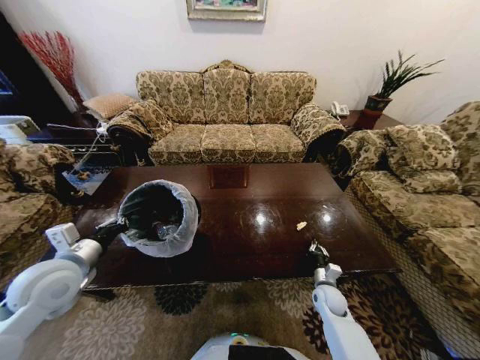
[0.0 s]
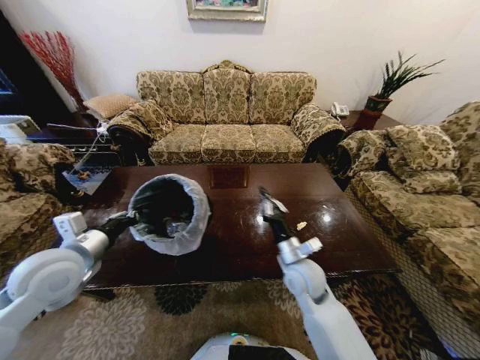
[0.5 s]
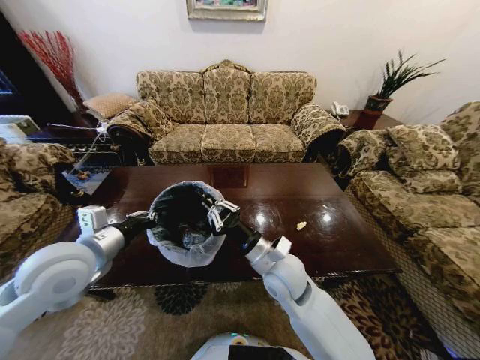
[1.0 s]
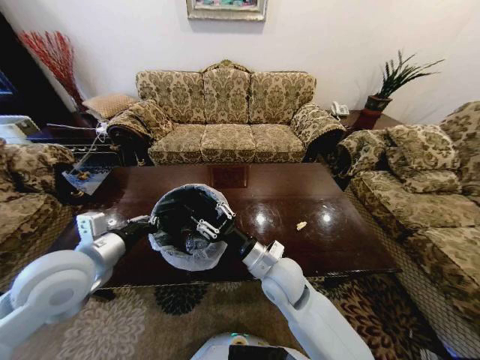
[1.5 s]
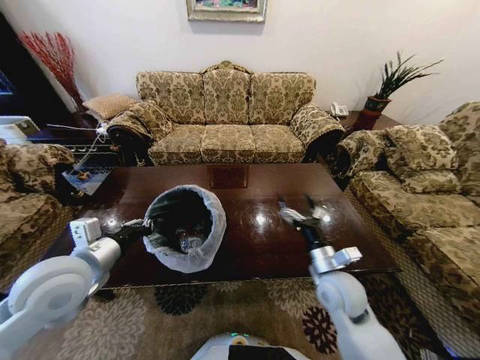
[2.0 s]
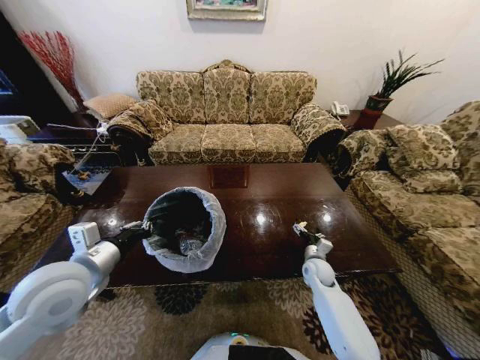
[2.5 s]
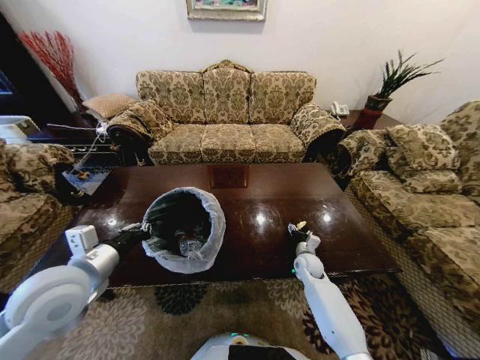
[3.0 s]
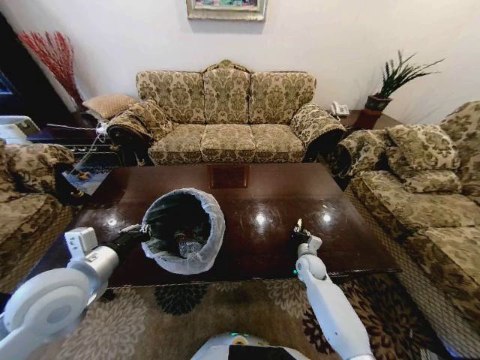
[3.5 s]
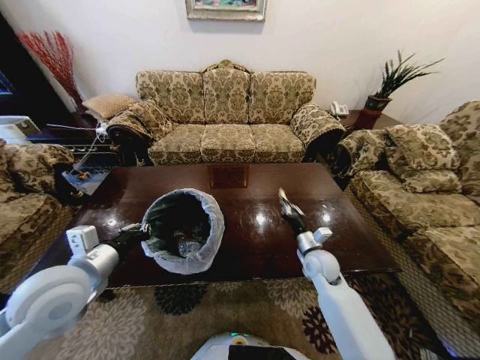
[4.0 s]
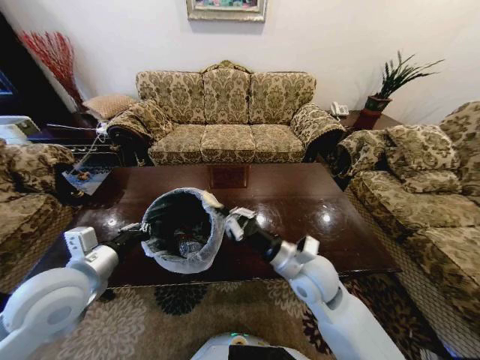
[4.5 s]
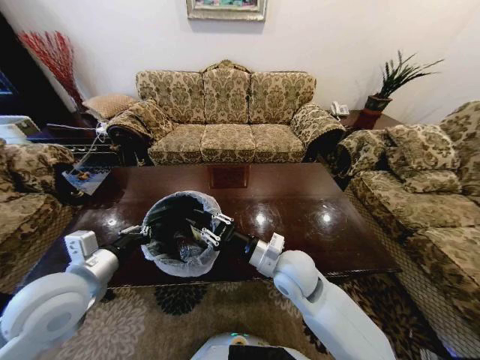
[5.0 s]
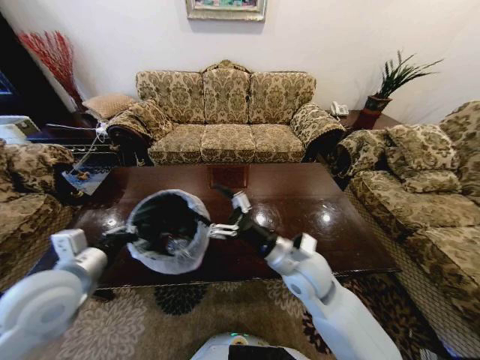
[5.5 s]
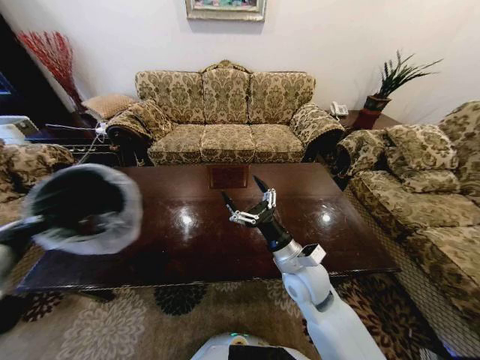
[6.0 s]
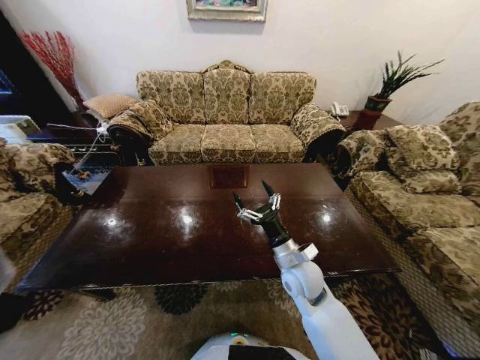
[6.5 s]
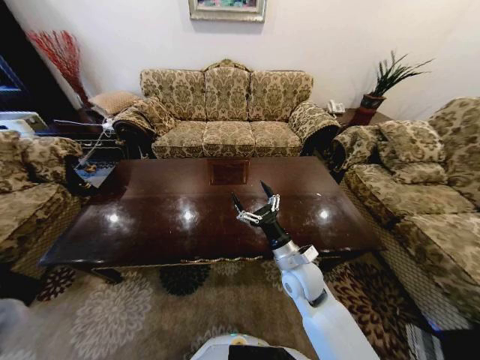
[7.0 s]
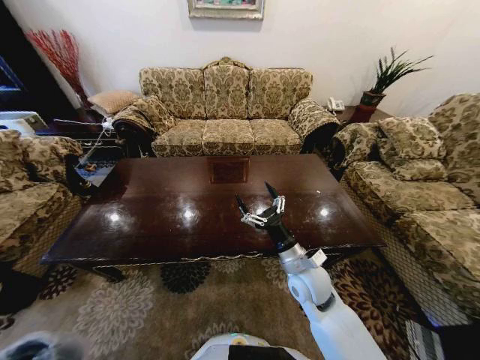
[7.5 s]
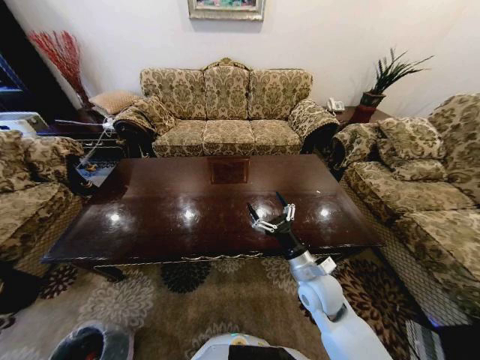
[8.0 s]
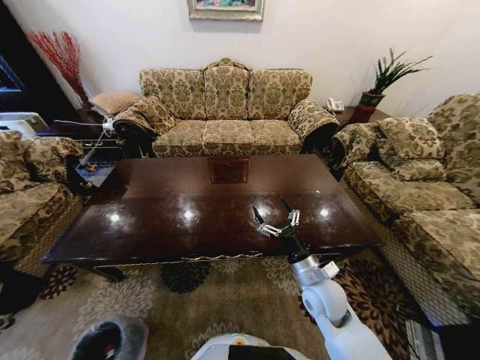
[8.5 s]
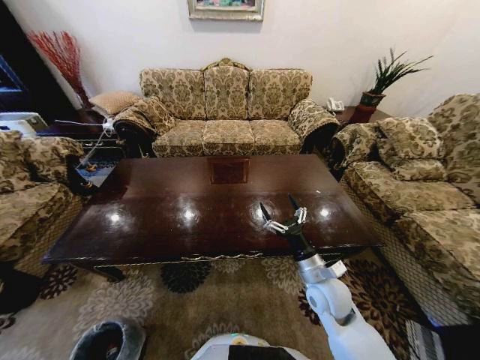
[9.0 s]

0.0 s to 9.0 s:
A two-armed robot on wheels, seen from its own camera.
Task of the whole recording: Move to the front of the table and place the trash on the table into the trash bin.
0.0 to 2.0 s: The left gripper shifts about 5 cm to the right, while the right gripper goes some 20 cm upward, and opens its fingers.
2.0 to 4.5 s: The right gripper heads to the left, covering some 10 cm, reaches about 20 cm downward, then returns, and closes up.
4.5 to 7.0 s: The right gripper heads downward, covering about 5 cm, and opens up, while the left gripper travels to the left, backward and downward by about 40 cm.
7.0 to 9.0 s: The right gripper travels to the right by approximately 5 cm, while the left gripper moves downward and to the right, some 30 cm, and opens.

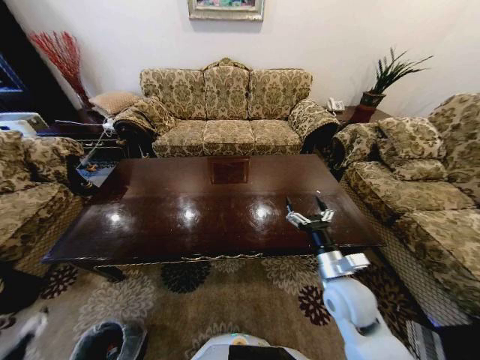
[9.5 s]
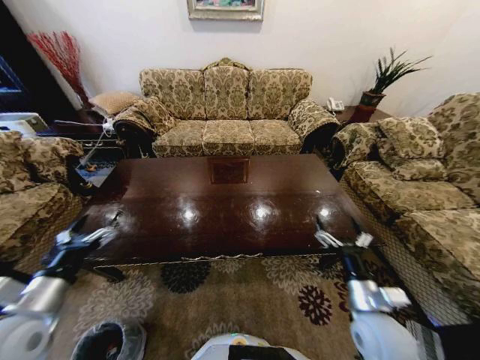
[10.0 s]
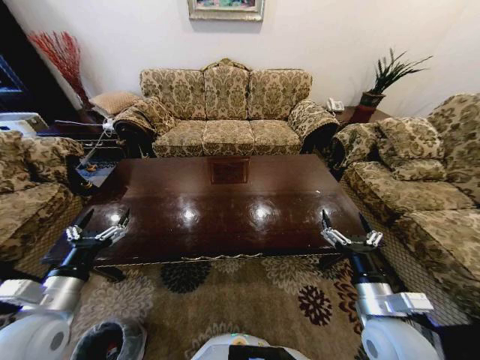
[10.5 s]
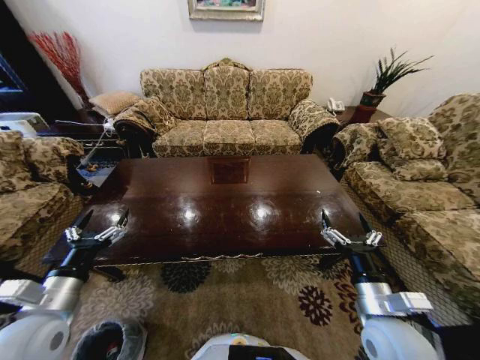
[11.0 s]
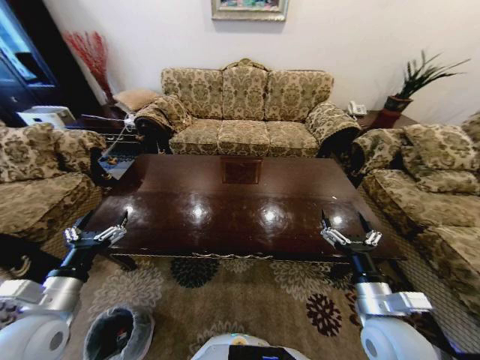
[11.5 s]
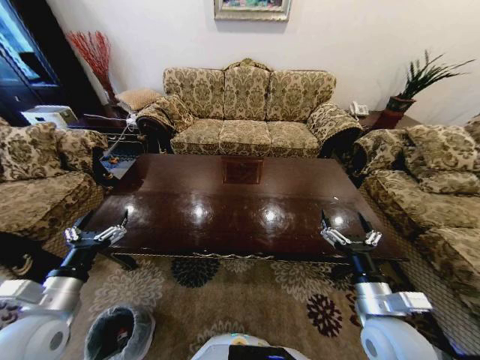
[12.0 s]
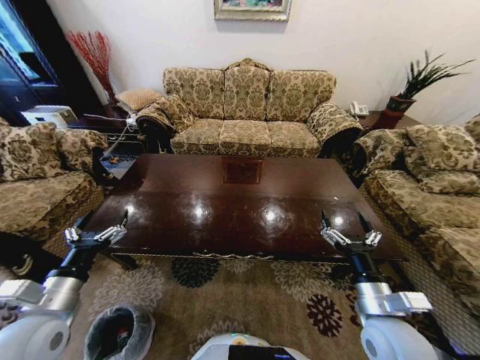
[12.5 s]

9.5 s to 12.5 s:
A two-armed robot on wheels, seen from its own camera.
Task of the whole recording: Move to the front of the table and place the trash on the table into the trash bin.
9.5 to 11.0 s: The left gripper moves upward, to the right and forward, approximately 25 cm. Meanwhile the right gripper is displaced backward by some 10 cm.

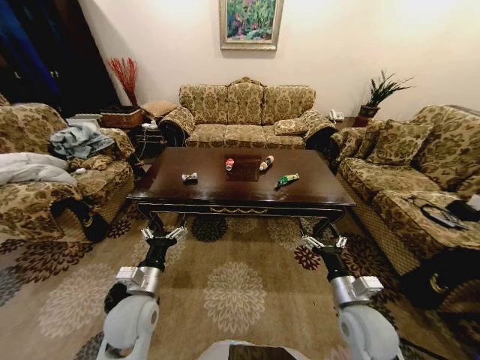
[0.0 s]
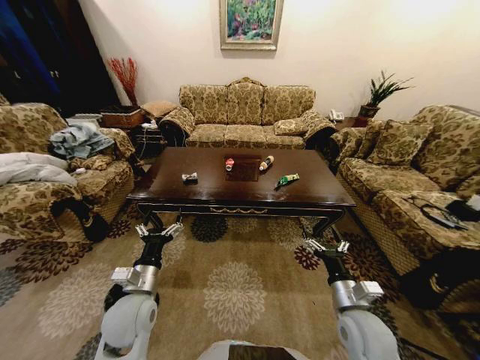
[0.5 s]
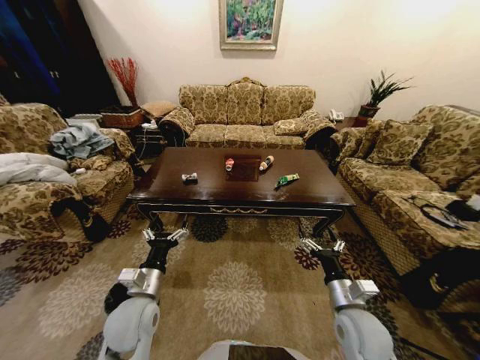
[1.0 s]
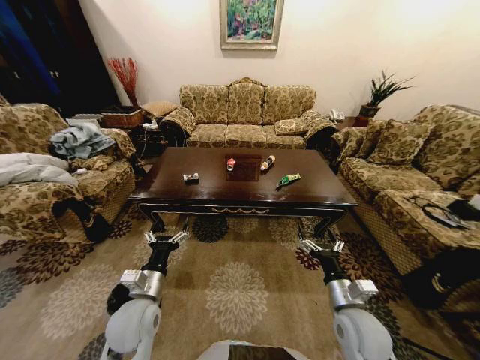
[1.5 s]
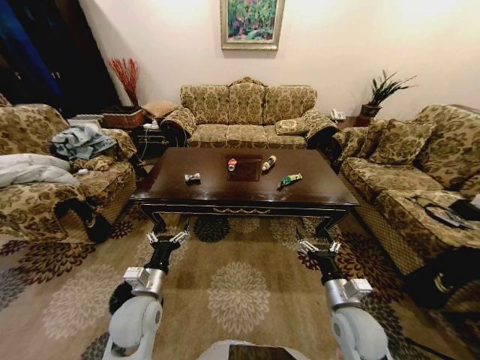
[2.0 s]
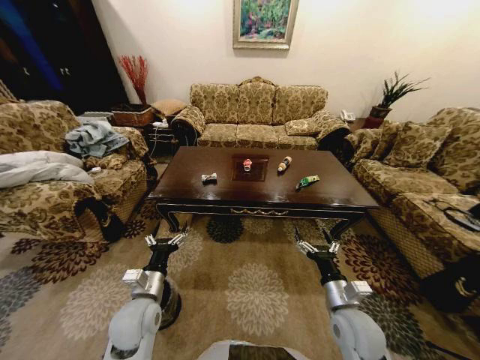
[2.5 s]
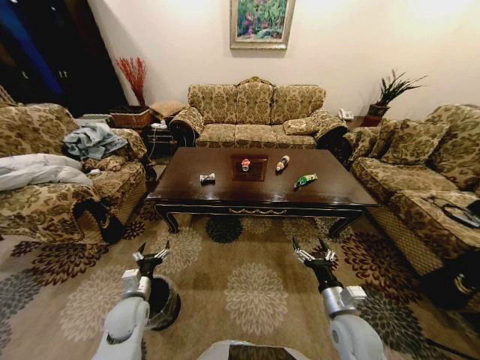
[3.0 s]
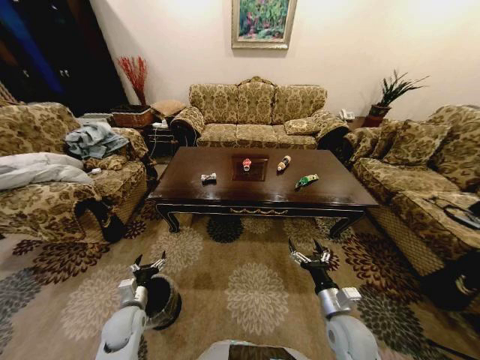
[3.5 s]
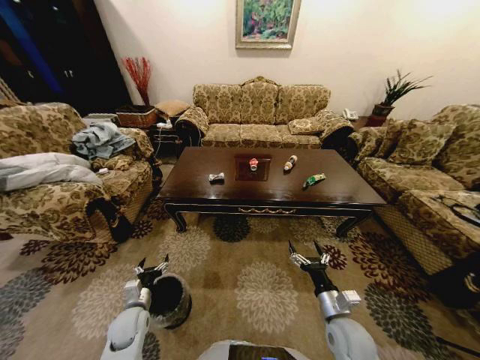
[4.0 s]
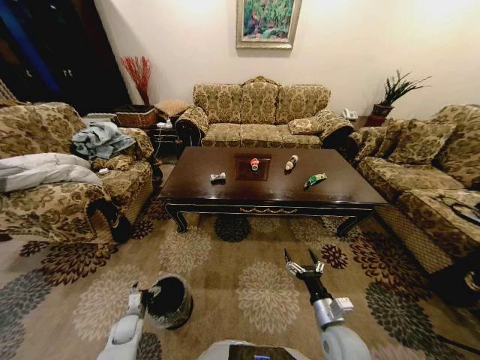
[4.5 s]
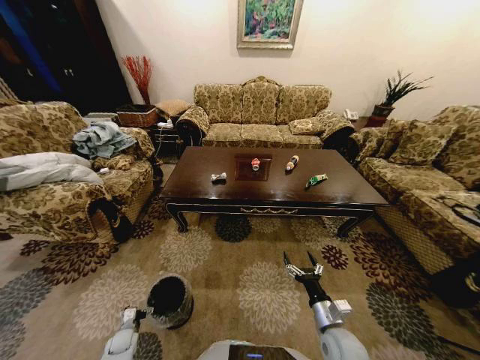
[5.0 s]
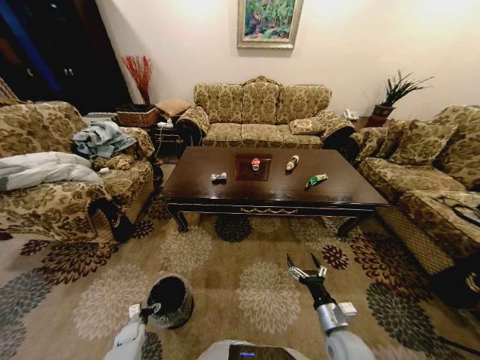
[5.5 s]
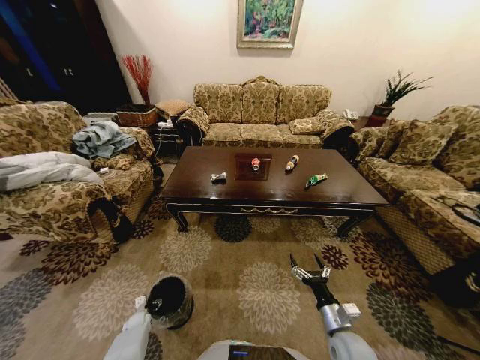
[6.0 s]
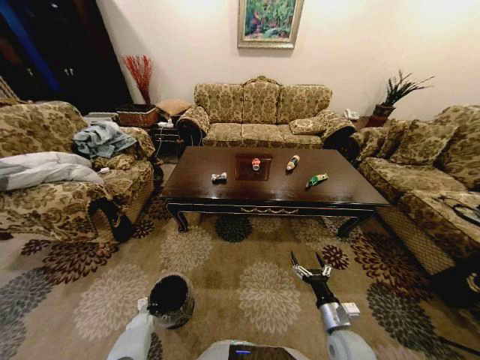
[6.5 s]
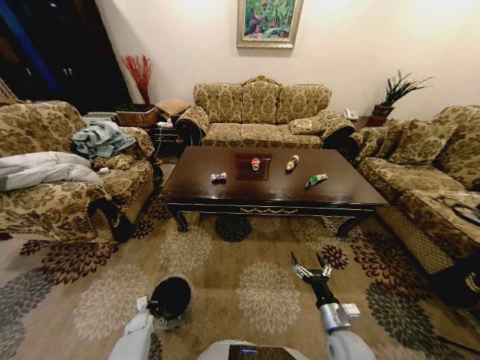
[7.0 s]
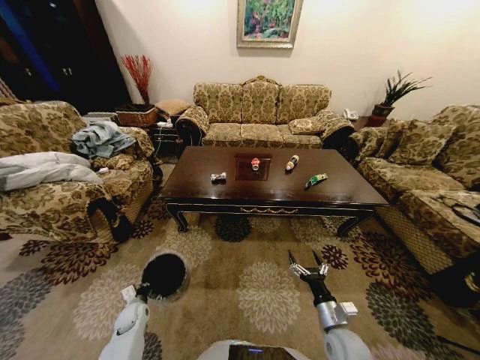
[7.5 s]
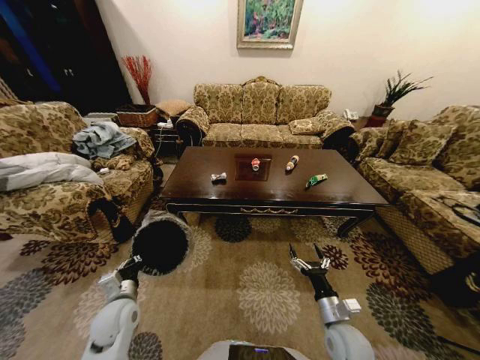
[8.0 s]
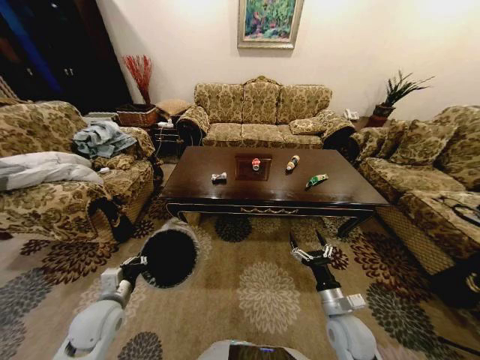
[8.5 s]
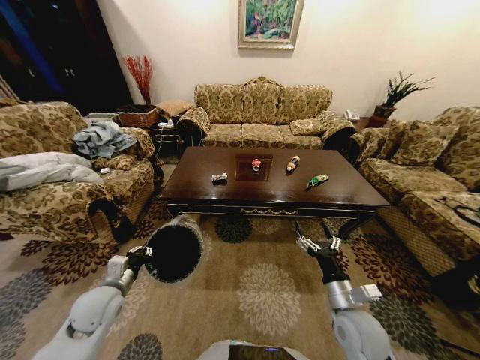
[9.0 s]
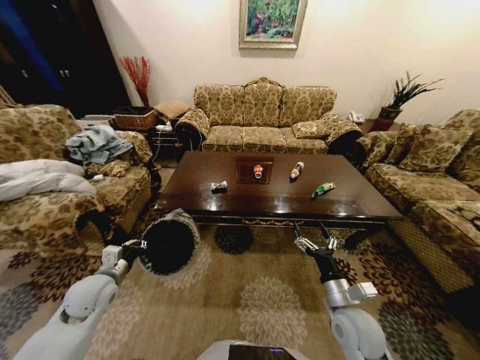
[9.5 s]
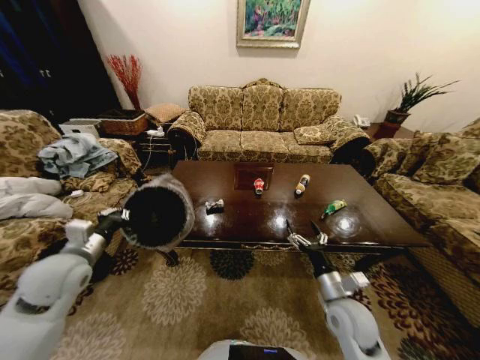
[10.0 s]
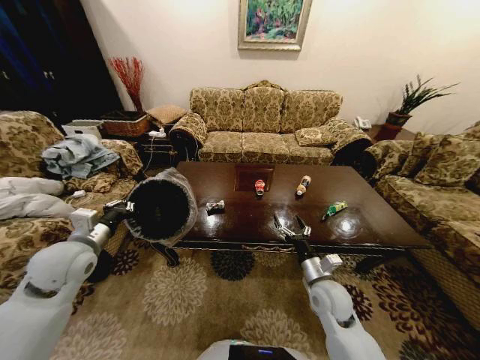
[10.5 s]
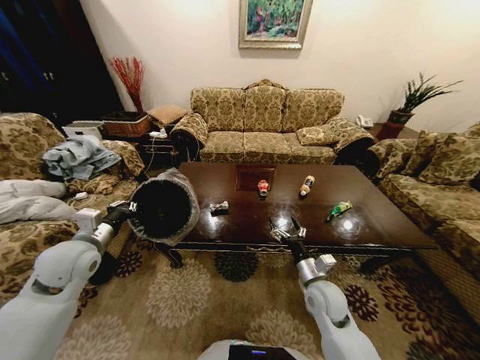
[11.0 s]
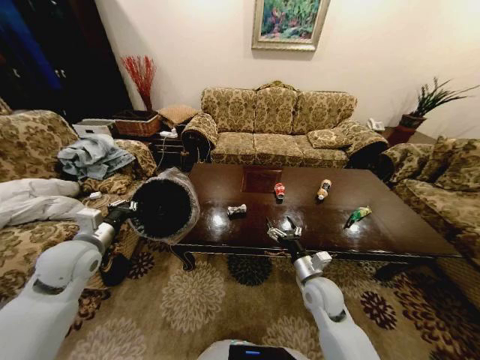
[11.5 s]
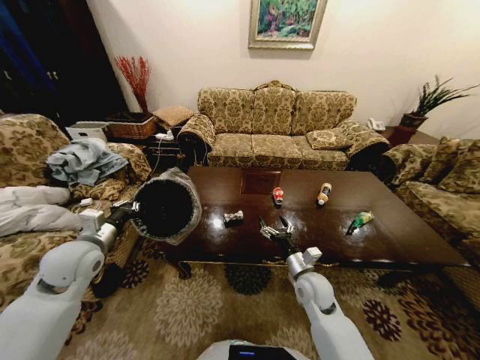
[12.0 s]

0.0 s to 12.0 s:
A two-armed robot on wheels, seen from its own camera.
Task of the whole recording: Move to the front of the table and place the trash on the table into the trash bin.
2.0 to 4.0 s: The left gripper moves downward and to the left, roughly 15 cm; the right gripper travels downward by some 5 cm.
4.0 to 6.0 s: The left gripper travels downward by roughly 20 cm.
6.0 to 8.0 s: The left gripper heads upward, covering about 30 cm, and closes up.
8.0 to 10.0 s: The right gripper is displaced upward by approximately 10 cm, while the left gripper travels upward and to the left by approximately 20 cm.
10.0 to 12.0 s: The right gripper heads forward and to the left, covering about 10 cm.

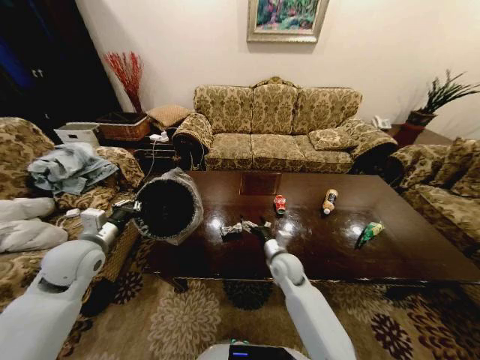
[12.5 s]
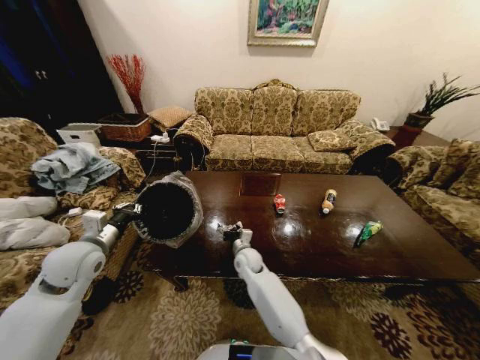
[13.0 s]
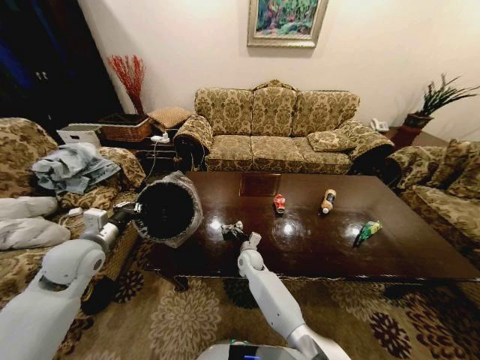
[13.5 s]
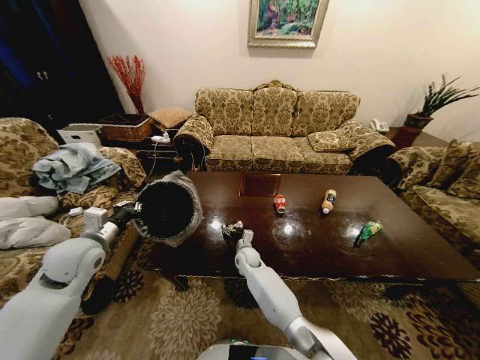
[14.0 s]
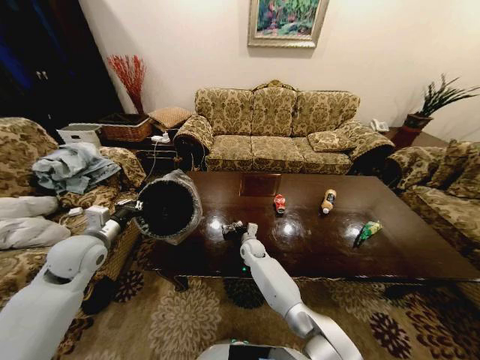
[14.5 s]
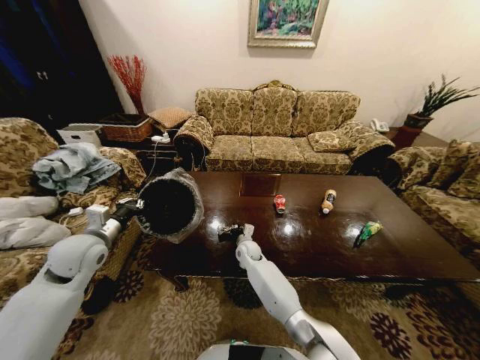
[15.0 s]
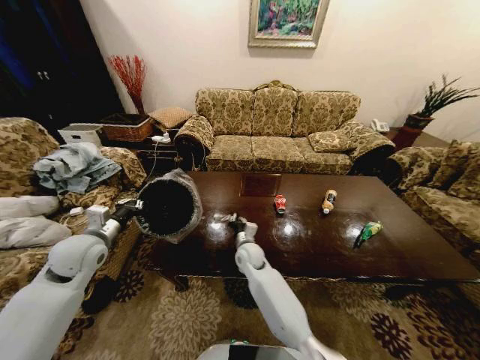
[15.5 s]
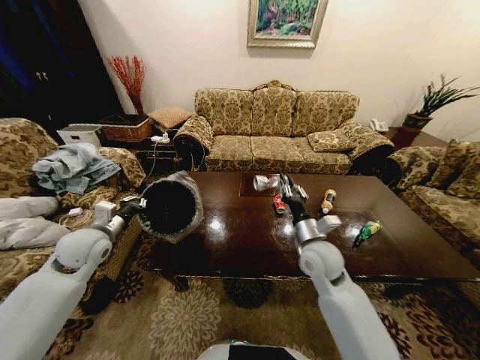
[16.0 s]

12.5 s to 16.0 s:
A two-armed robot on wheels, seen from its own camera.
Task of the whole recording: Move to the front of the table and place the trash on the table into the trash bin.
12.5 to 14.5 s: The right gripper travels forward, to the left and downward by roughly 20 cm.
14.5 to 16.0 s: The right gripper moves upward, to the right and backward, about 30 cm, and closes.
